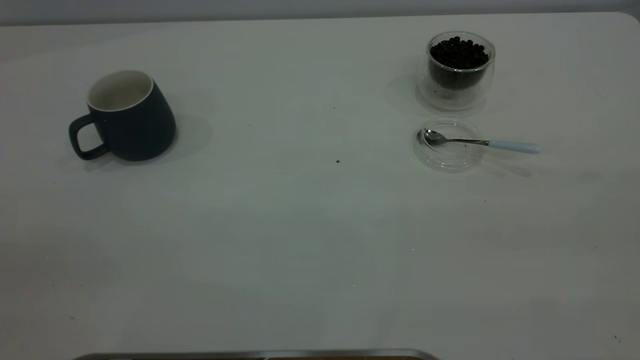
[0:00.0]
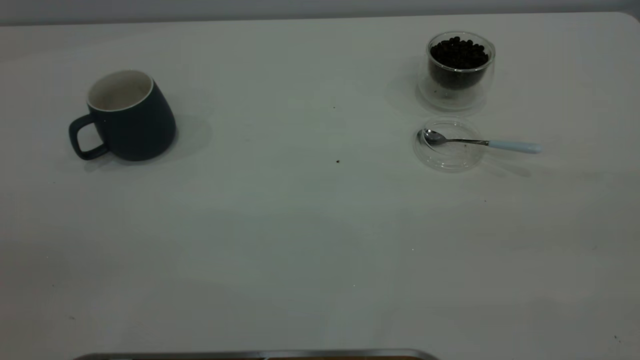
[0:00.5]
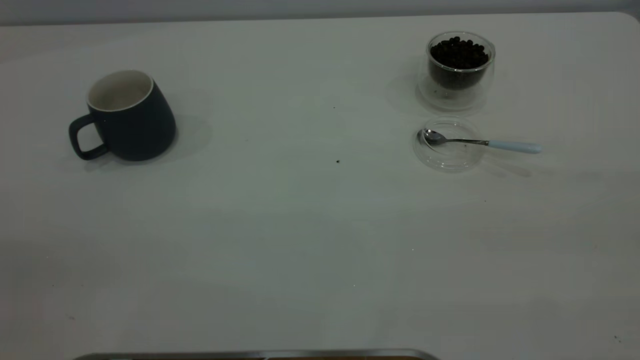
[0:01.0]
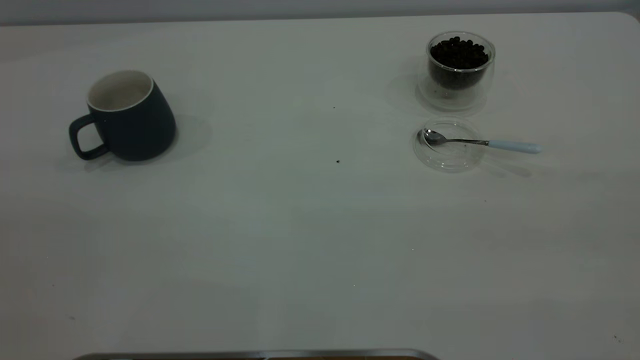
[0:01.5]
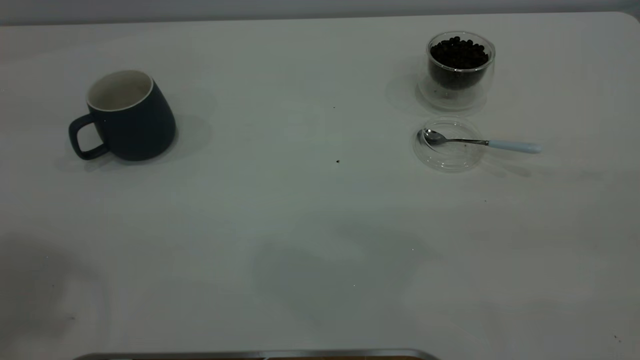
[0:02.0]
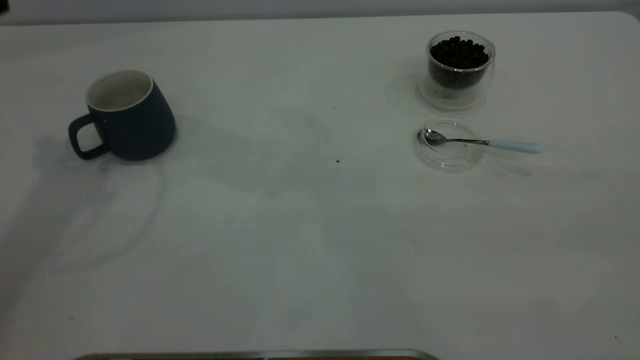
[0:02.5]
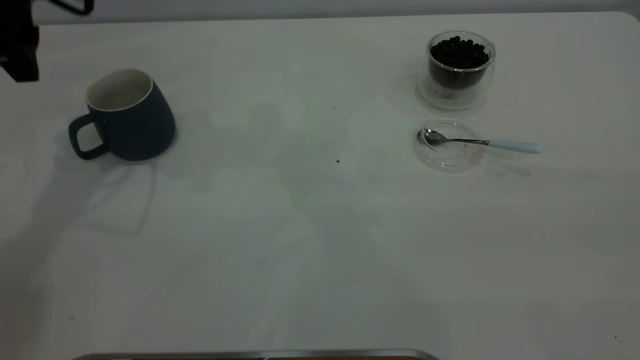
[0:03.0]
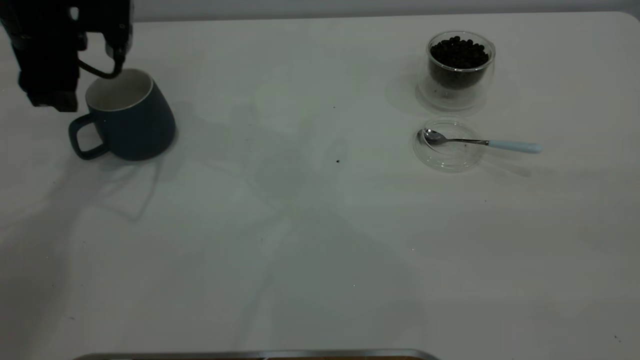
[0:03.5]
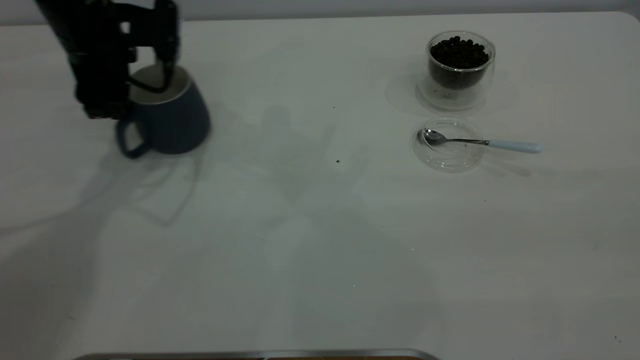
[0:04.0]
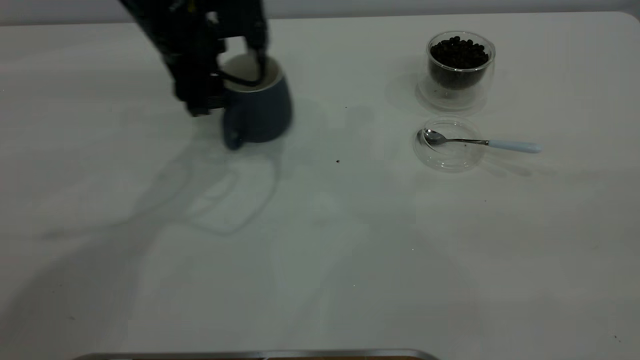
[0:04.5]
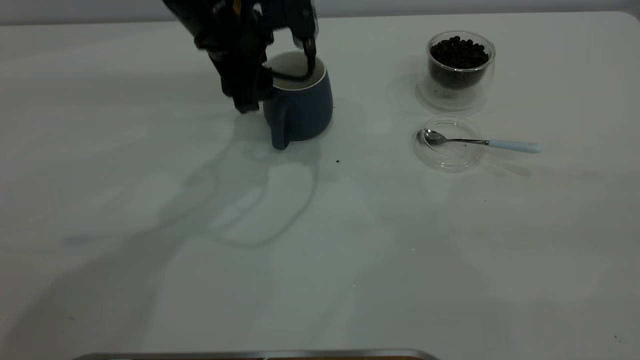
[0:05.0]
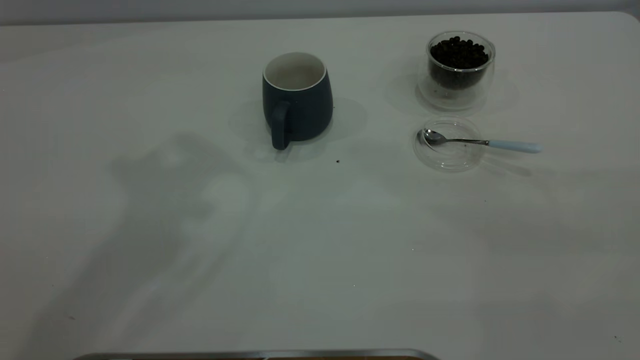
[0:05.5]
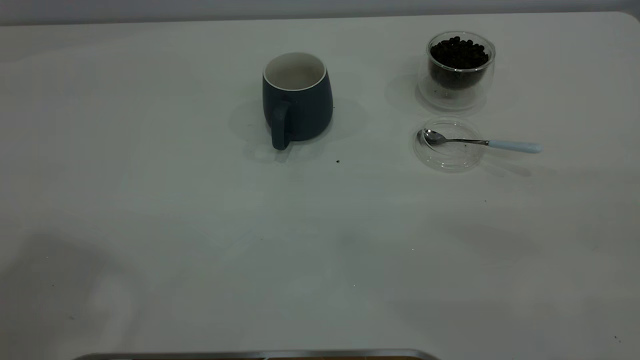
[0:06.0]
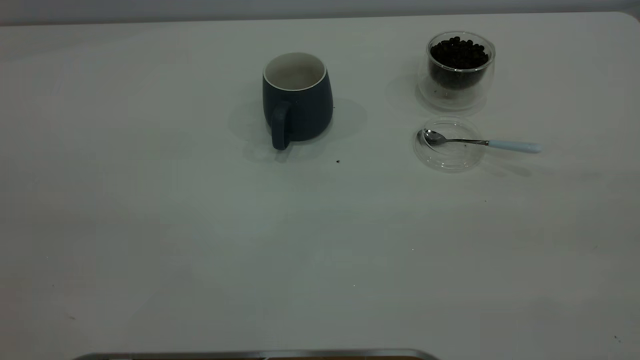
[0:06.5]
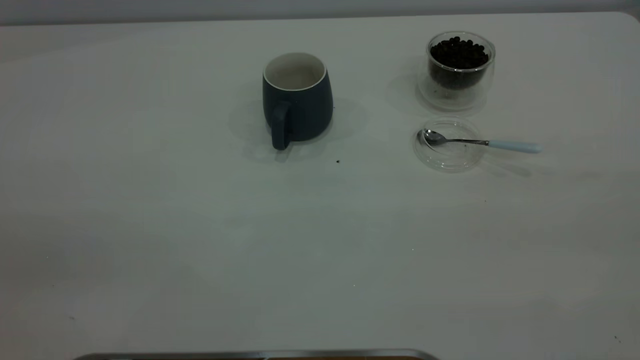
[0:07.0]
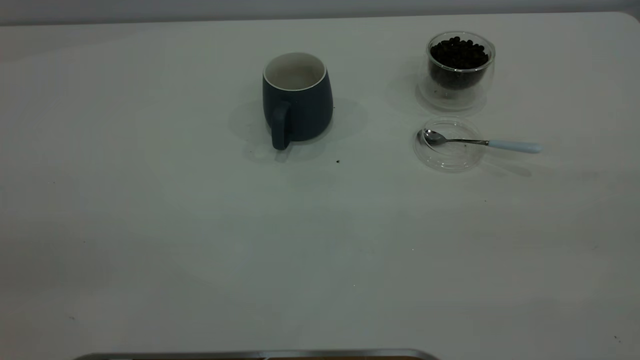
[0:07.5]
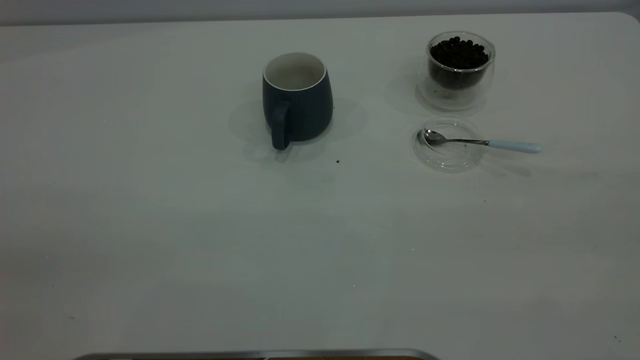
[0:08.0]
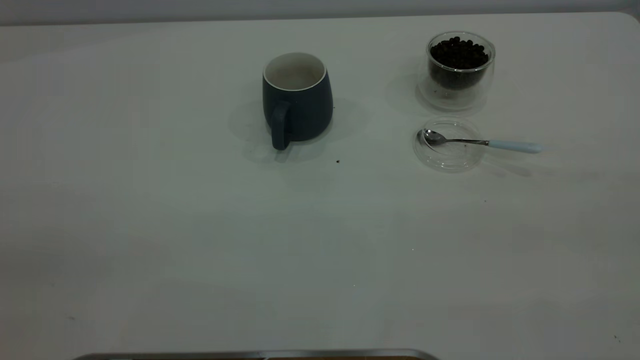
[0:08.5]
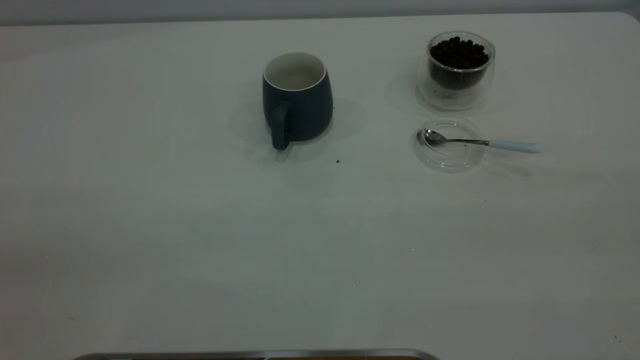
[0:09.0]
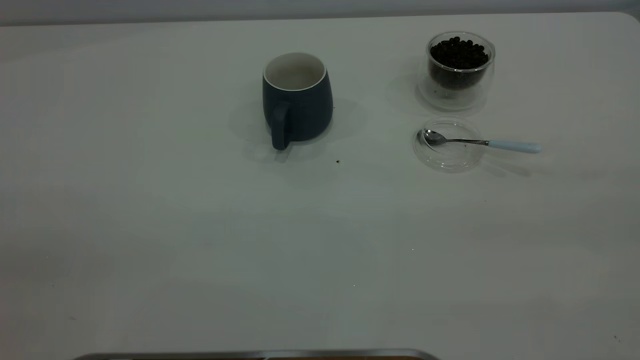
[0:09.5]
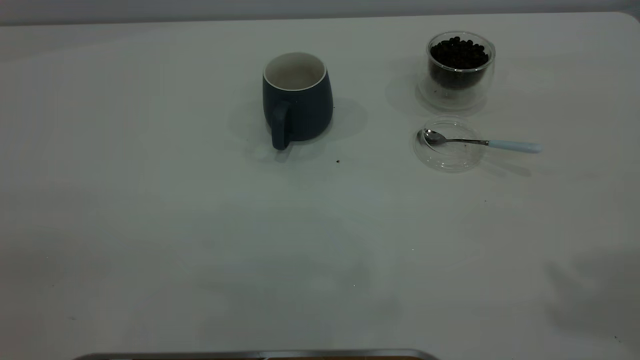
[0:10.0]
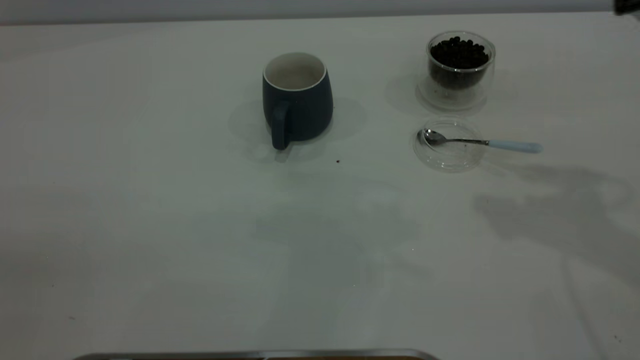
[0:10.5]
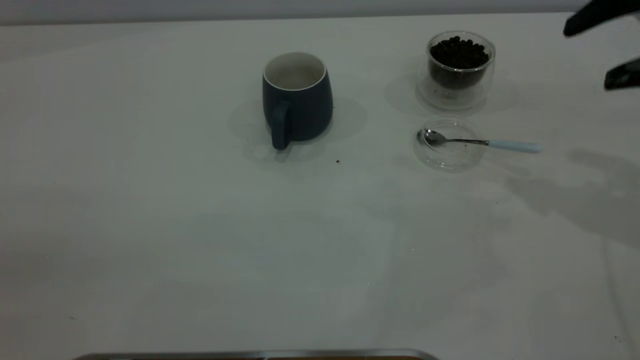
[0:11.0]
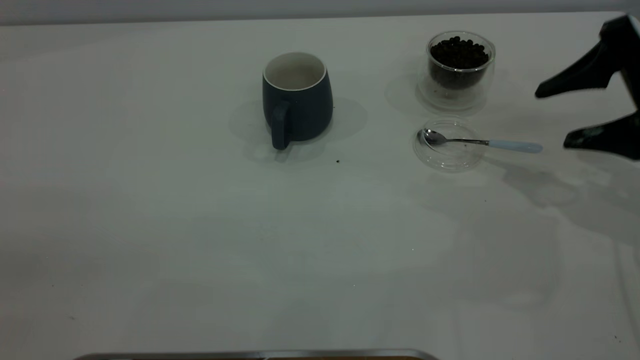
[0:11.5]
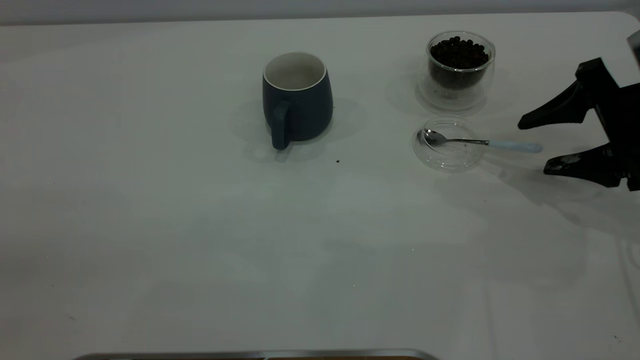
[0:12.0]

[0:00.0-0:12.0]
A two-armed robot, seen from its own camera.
Task of the whole recording: the left gripper place the grey cup in the center of the table, the right gripper take the blue spoon from the cup lid and scoop out the coffee beans from the coffee cup and put them into the grey cup, the right gripper put the spoon back into the cup lid.
Step, 0:00.0 to 0:05.0: Move the cup to the center of view.
0:02.0 to 0:04.0: The left gripper goes approximately 35 cm downward and forward.
0:04.0 to 0:06.0: The left gripper goes some 40 cm upward and backward.
0:10.0 to 0:12.0: The right gripper travels downward and forward by about 35 cm.

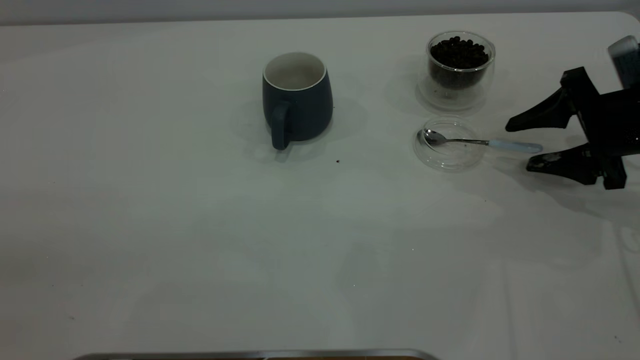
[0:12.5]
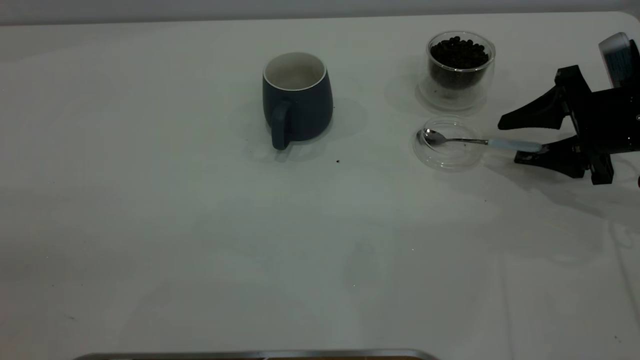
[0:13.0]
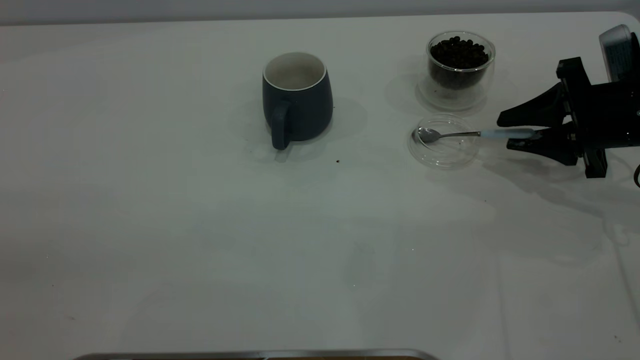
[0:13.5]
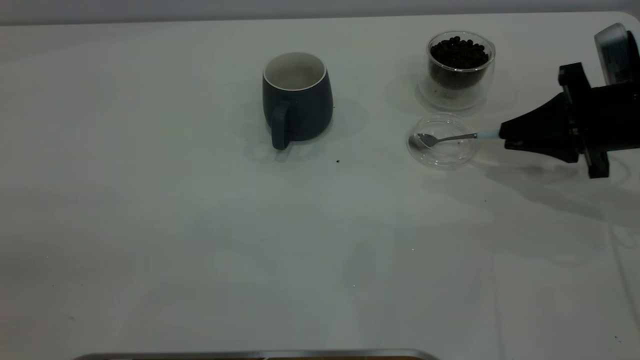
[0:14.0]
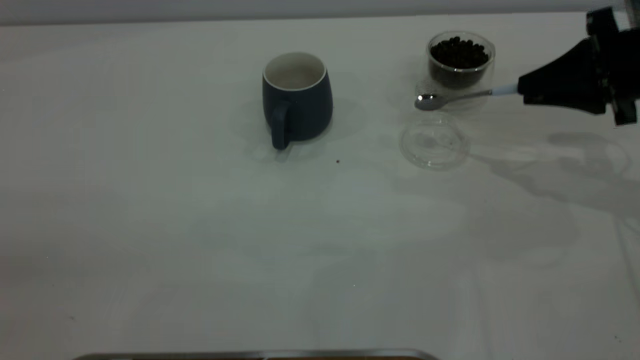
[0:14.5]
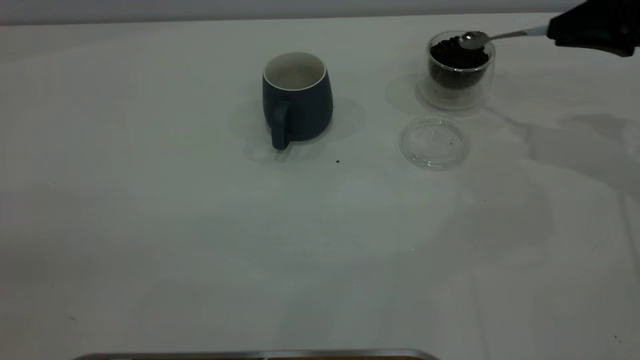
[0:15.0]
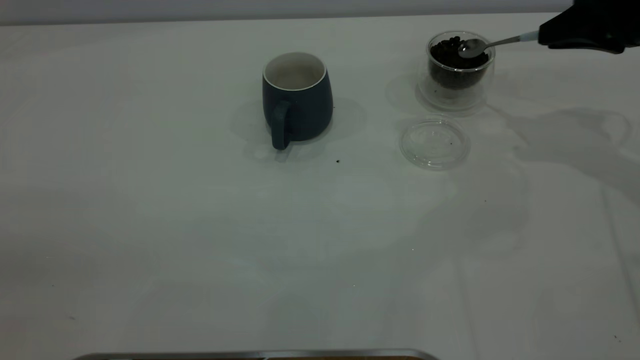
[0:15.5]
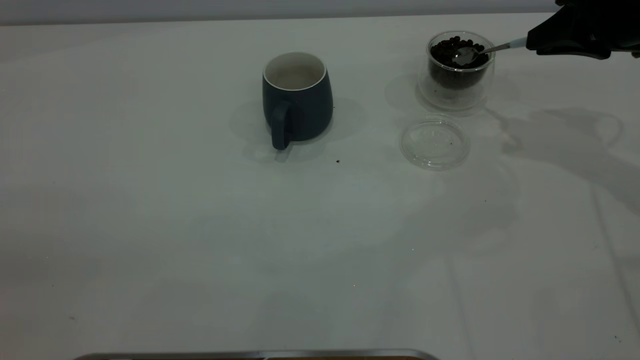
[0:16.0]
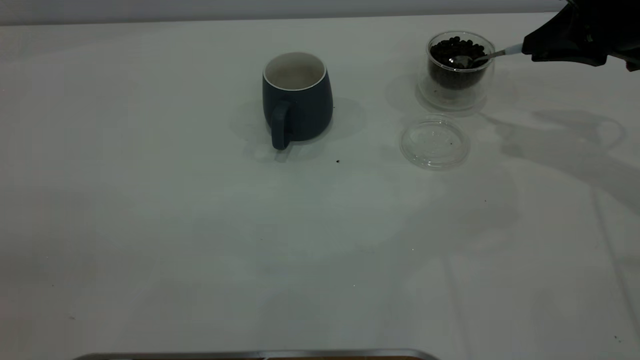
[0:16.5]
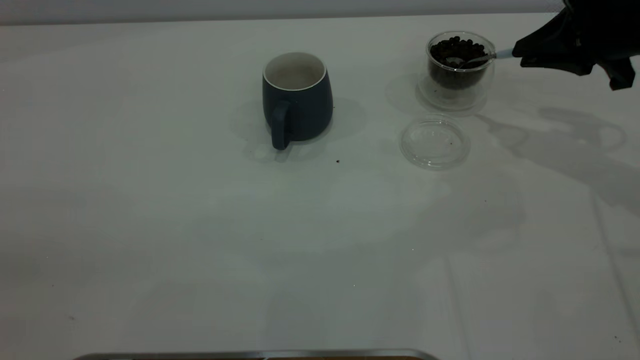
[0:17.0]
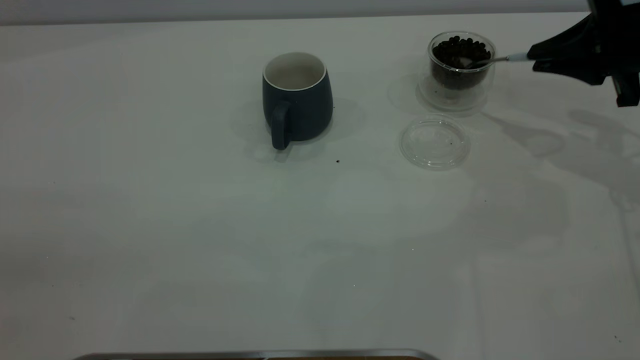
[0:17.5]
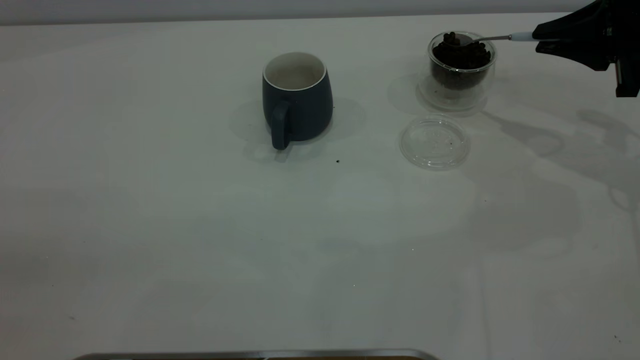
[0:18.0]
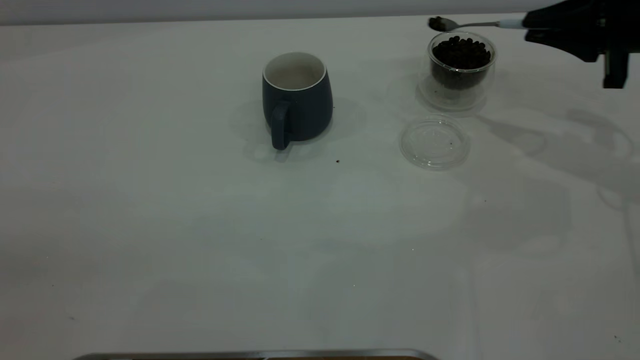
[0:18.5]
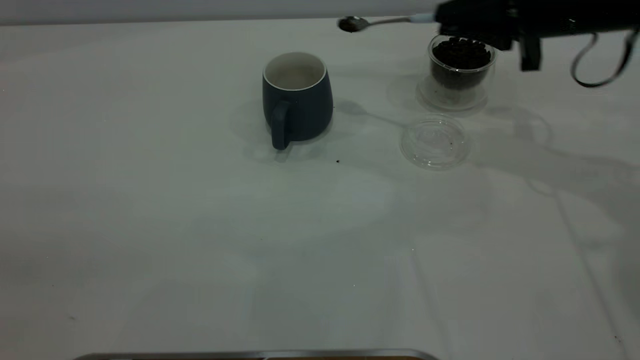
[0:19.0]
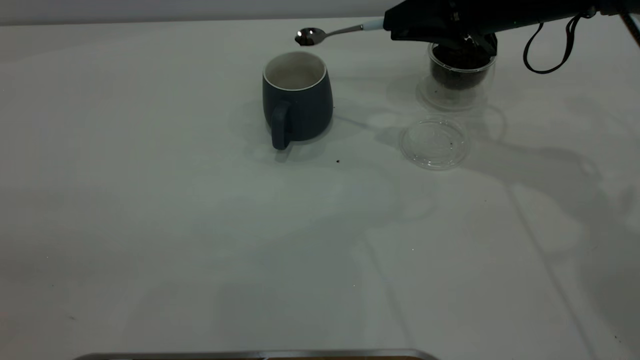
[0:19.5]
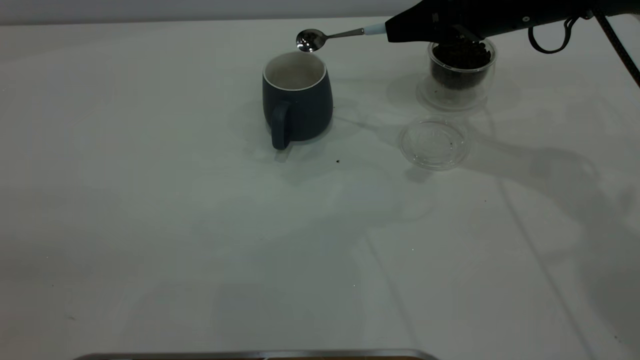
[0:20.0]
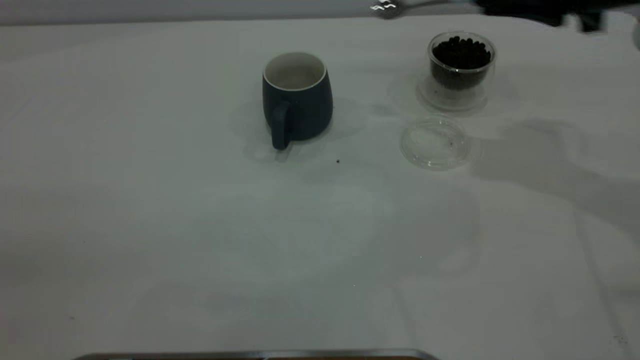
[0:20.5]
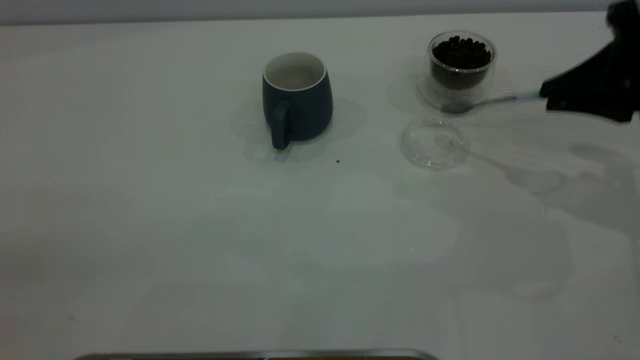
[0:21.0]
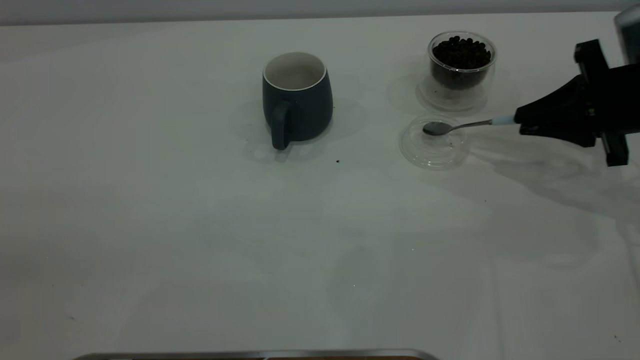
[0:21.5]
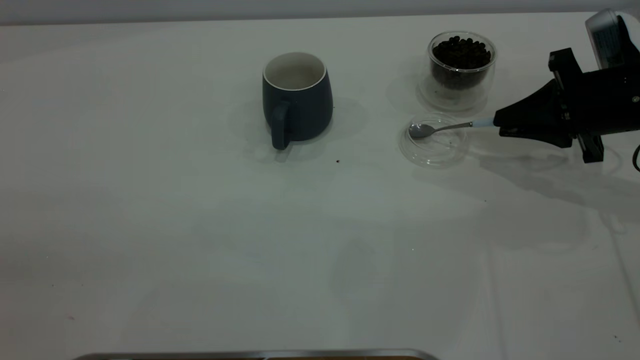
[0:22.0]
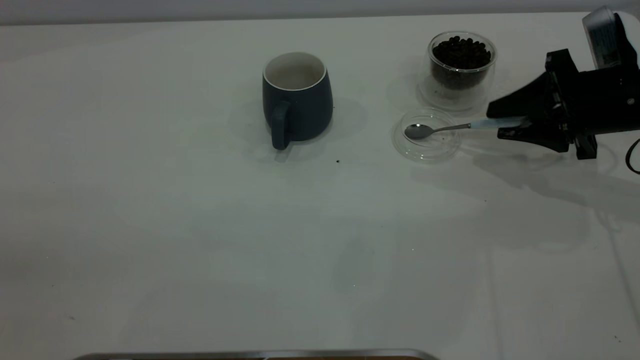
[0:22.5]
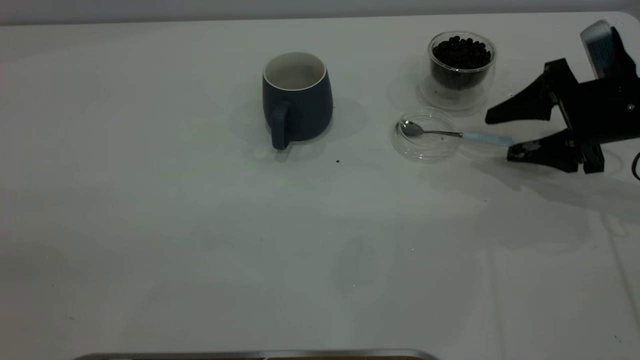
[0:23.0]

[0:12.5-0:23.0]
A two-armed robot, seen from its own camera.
Task of the whole recording: the left gripper place the grey cup in the center of the table, the right gripper take the blue spoon from the cup lid and scoop out the coffee beans from the coffee cup and put them into the grey cup, the right gripper put the spoon back into the cup lid.
Step, 0:14.5 to 0:20.0: Scoop a spoonful of beans into the cup.
0:12.5 to 0:14.5: The right gripper goes roughly 5 cm upward, and closes up.
0:16.5 to 0:19.0: The right gripper shifts approximately 5 cm to the left.
0:19.0 to 0:21.0: The right gripper heads to the right and backward, covering about 10 cm.
0:21.0 to 0:23.0: The right gripper shifts approximately 5 cm downward, and opens.
